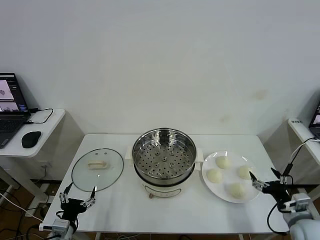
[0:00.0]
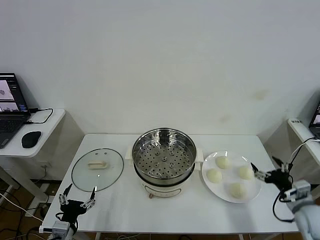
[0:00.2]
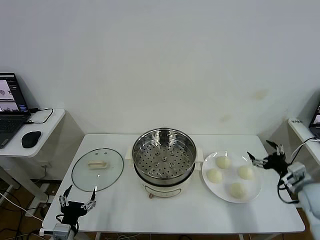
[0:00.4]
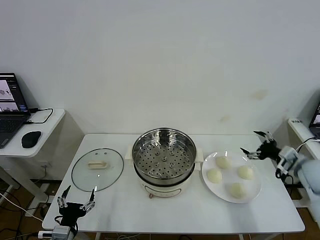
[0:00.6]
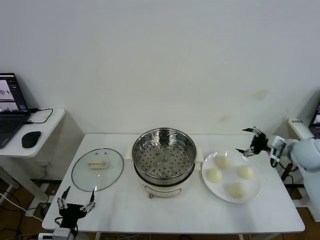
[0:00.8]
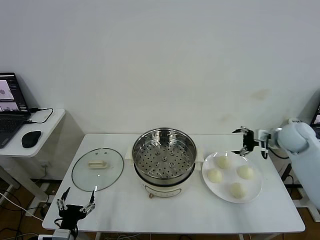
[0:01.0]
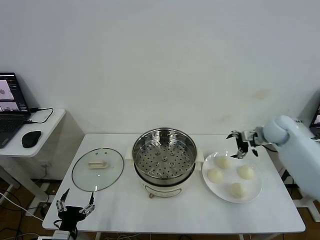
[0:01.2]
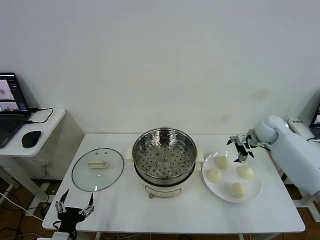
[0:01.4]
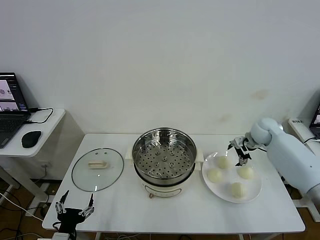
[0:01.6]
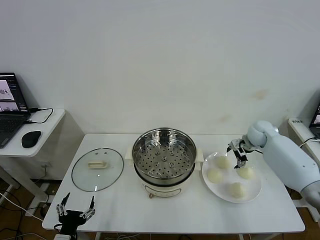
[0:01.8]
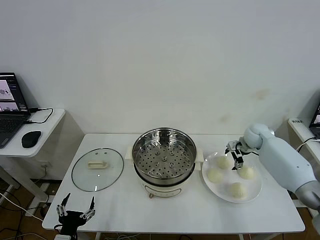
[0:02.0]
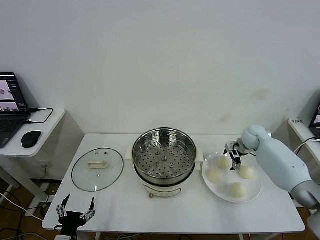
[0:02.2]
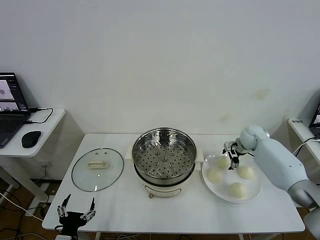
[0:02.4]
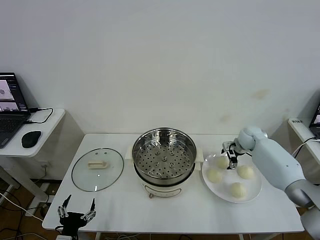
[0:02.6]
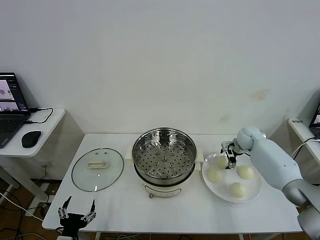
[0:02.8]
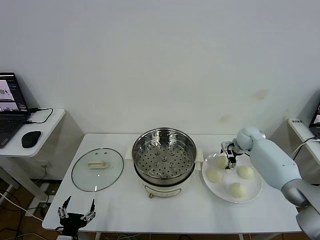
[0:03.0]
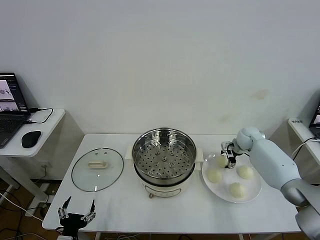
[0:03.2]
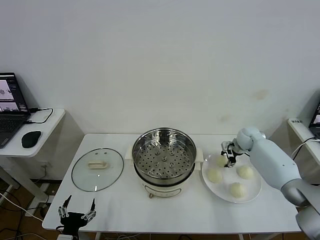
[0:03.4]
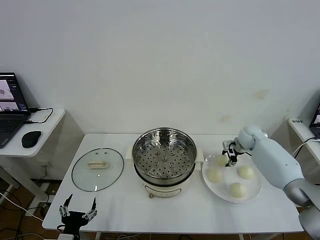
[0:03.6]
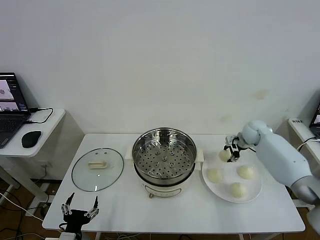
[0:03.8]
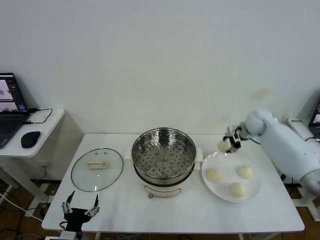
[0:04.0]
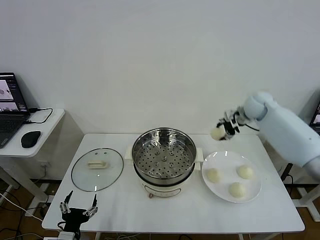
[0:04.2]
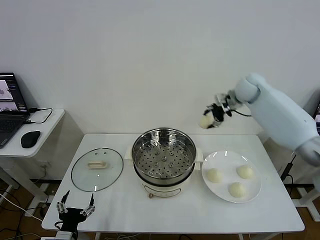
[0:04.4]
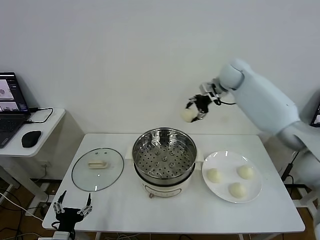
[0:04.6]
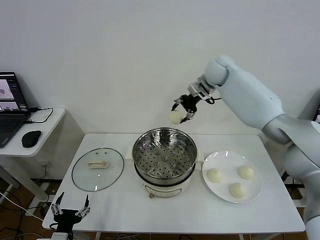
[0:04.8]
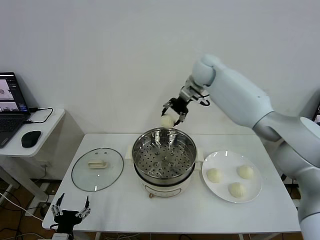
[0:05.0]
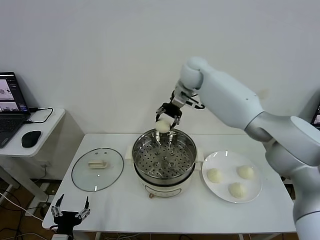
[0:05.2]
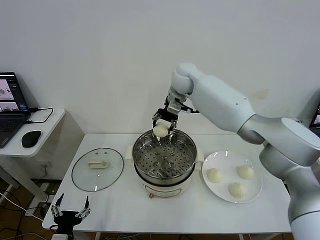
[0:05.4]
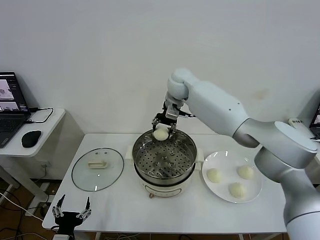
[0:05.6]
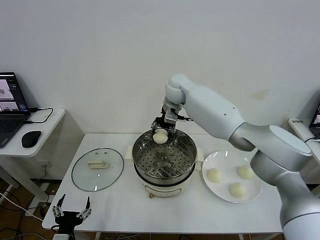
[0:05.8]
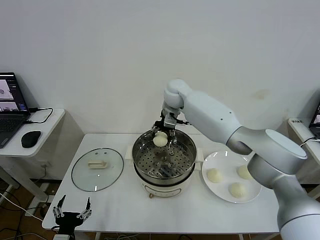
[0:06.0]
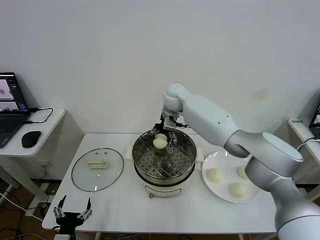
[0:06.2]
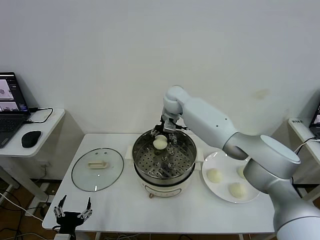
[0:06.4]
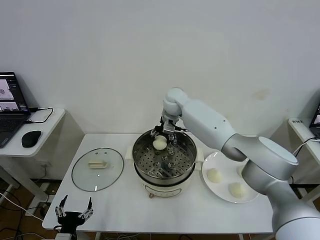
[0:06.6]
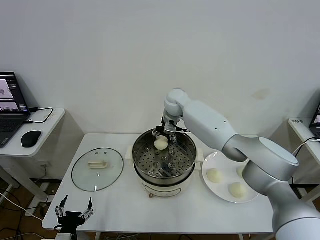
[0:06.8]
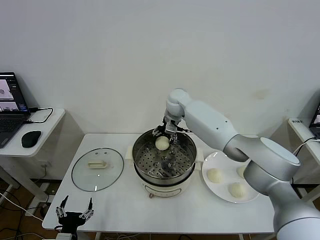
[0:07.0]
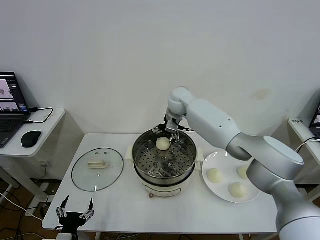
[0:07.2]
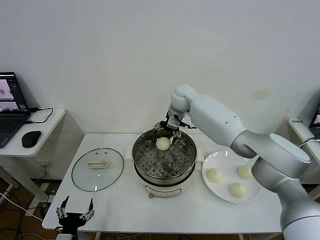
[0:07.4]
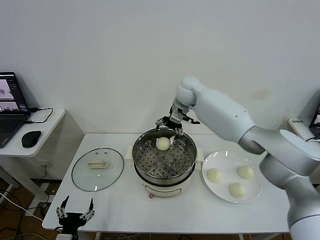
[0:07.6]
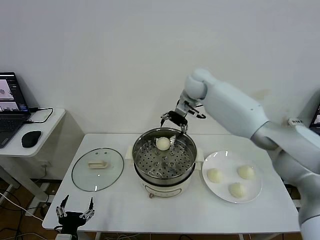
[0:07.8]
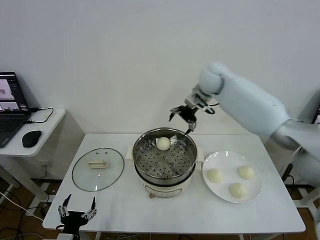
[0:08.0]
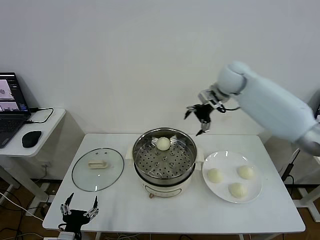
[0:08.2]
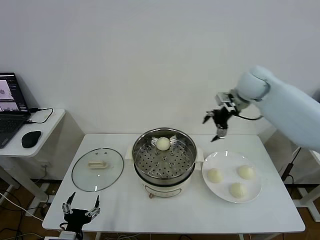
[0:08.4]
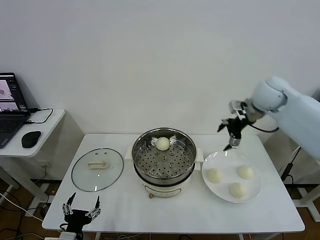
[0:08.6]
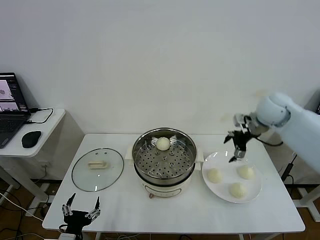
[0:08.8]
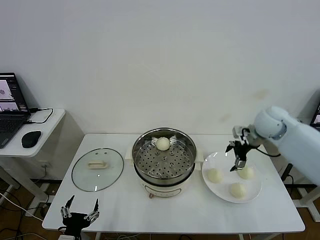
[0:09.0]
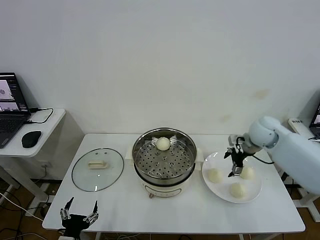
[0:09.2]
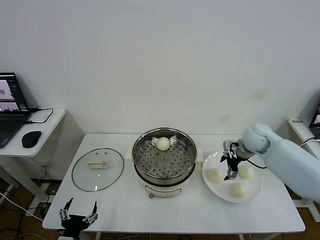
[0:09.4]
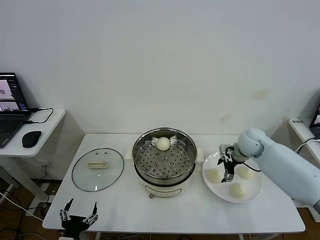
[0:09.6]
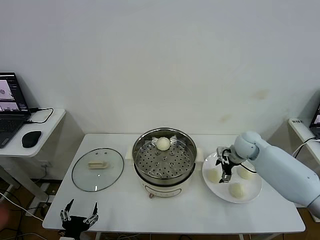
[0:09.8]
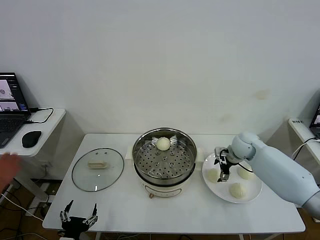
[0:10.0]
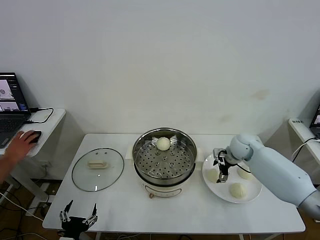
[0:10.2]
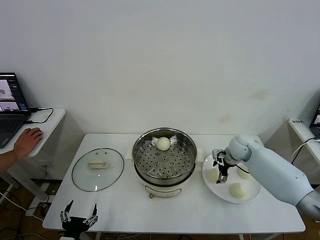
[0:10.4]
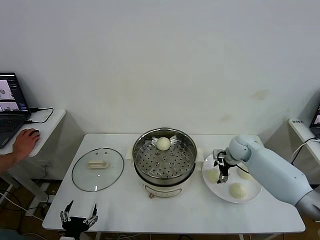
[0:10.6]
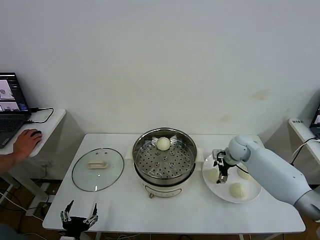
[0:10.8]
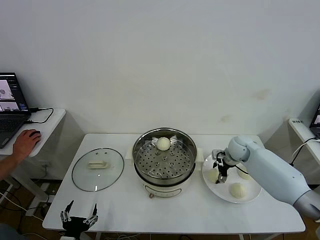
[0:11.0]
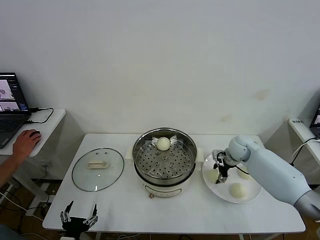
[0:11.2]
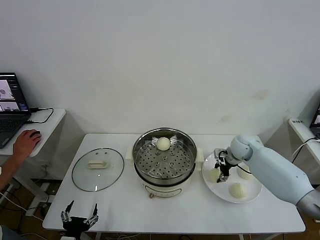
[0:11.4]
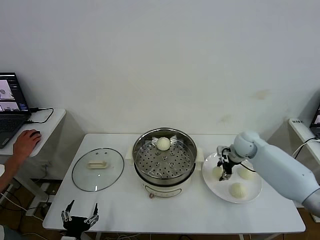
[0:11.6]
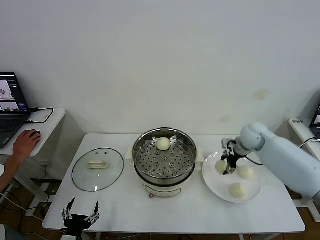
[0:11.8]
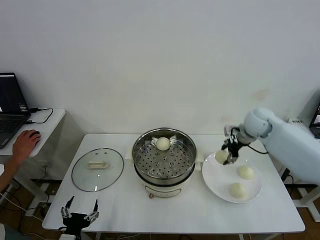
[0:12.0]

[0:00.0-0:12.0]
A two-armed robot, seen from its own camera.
Step, 0:00.0 to 0:03.4: Grasp the baozi in the plate with right gripper.
Step, 0:03.6 to 0:07.0: Place the baozi on the steamer with right gripper.
Step, 0:07.2 to 0:11.2: Grasp the baozi in the plate with right gripper.
0:01.6 to 0:03.0: The right gripper moves downward, roughly 5 cm.
0:03.0 to 0:04.4: The right gripper shifts approximately 20 cm upward, and closes.
0:04.4 to 0:06.0: The right gripper shifts about 25 cm to the left.
0:06.0 to 0:07.6: The right gripper moves about 5 cm, and opens up.
0:07.6 to 0:09.0: The right gripper goes about 30 cm to the right and backward.
0:09.0 to 0:10.4: The right gripper goes about 15 cm downward.
0:10.4 to 0:12.0: The right gripper moves upward, roughly 10 cm, and closes up.

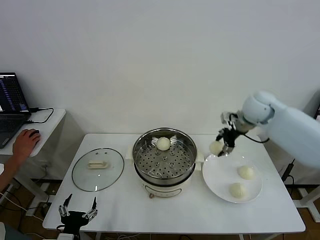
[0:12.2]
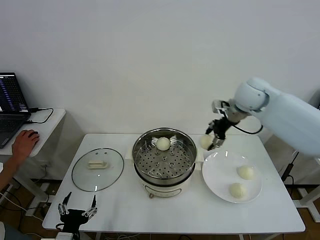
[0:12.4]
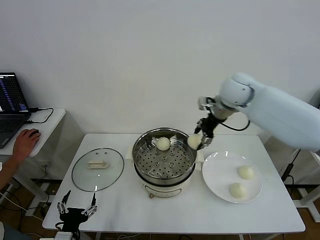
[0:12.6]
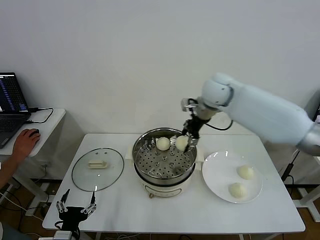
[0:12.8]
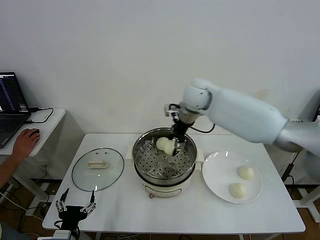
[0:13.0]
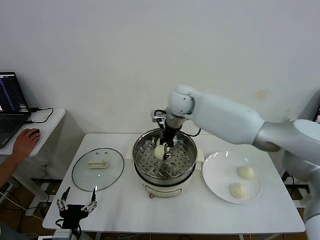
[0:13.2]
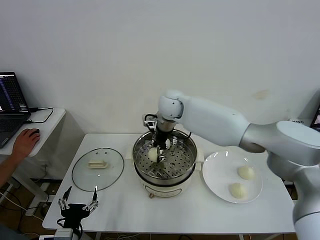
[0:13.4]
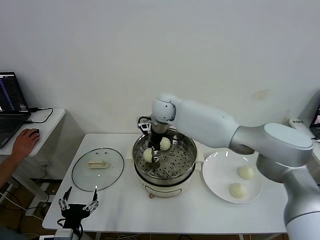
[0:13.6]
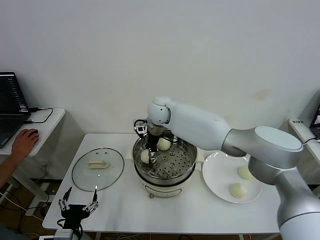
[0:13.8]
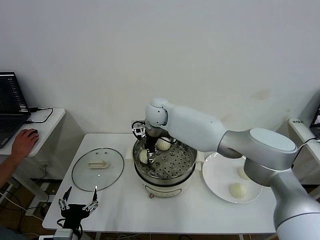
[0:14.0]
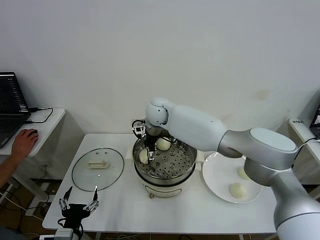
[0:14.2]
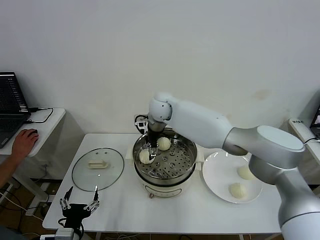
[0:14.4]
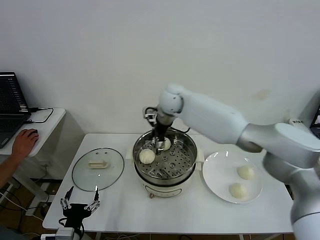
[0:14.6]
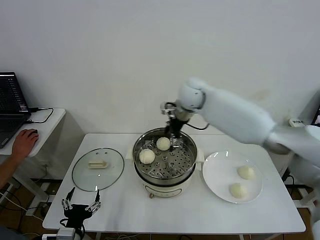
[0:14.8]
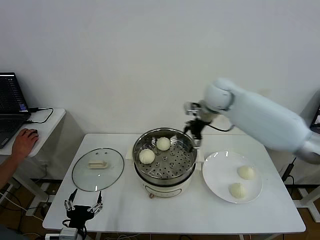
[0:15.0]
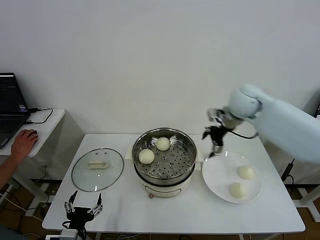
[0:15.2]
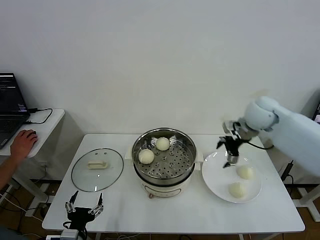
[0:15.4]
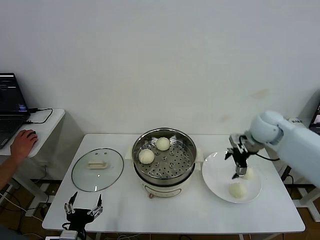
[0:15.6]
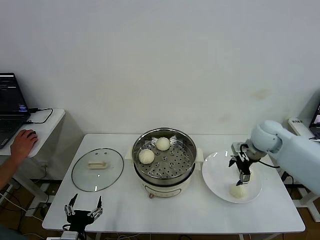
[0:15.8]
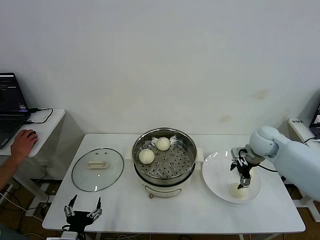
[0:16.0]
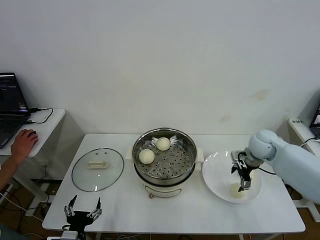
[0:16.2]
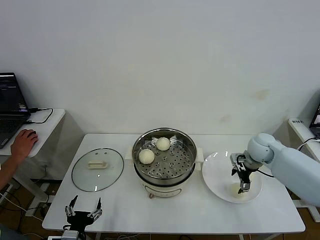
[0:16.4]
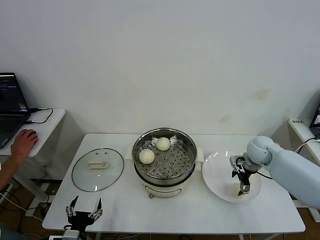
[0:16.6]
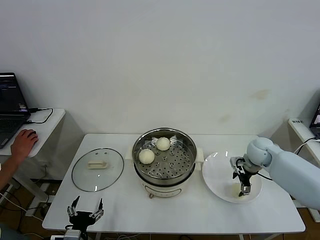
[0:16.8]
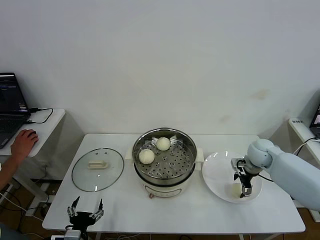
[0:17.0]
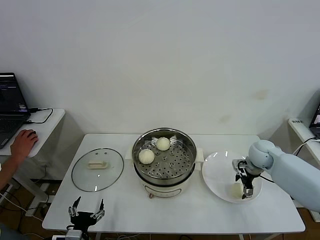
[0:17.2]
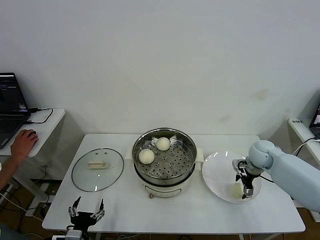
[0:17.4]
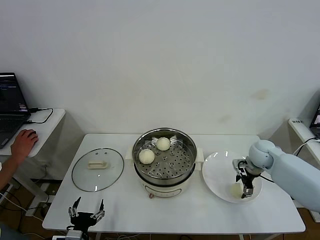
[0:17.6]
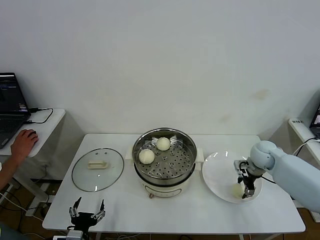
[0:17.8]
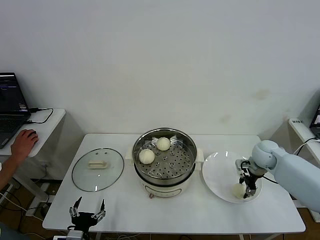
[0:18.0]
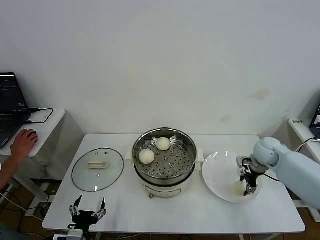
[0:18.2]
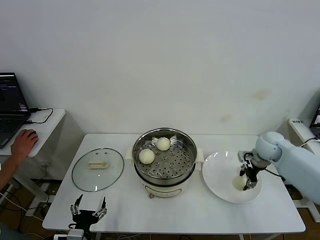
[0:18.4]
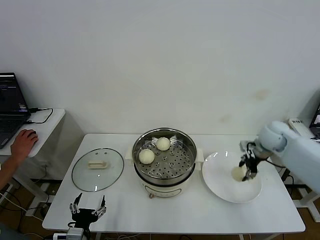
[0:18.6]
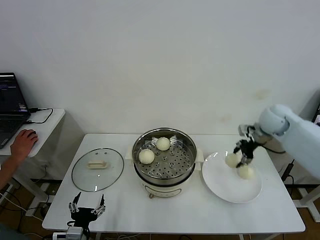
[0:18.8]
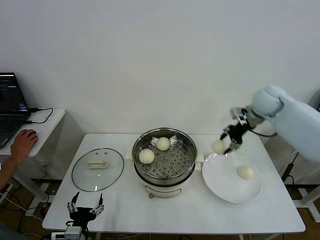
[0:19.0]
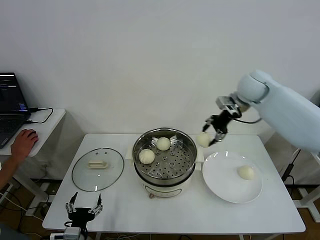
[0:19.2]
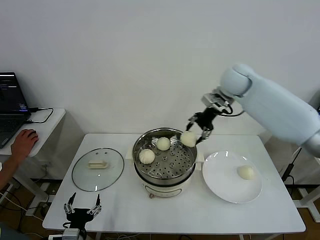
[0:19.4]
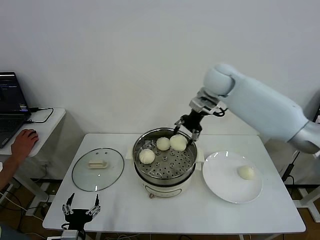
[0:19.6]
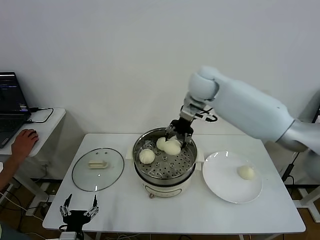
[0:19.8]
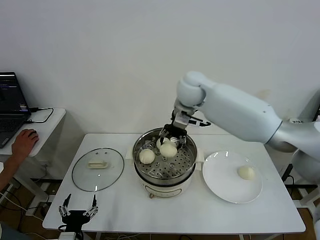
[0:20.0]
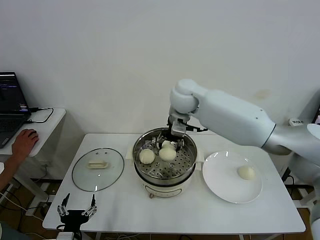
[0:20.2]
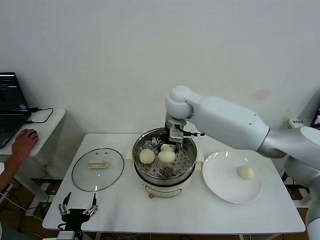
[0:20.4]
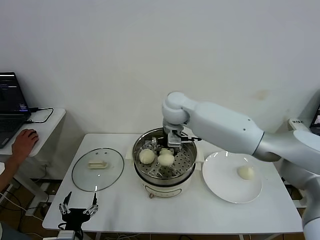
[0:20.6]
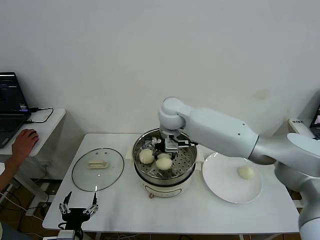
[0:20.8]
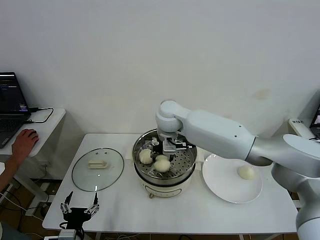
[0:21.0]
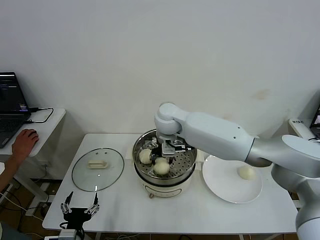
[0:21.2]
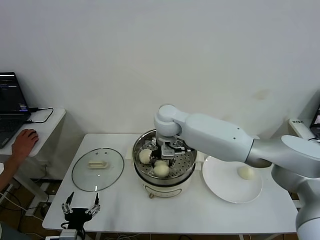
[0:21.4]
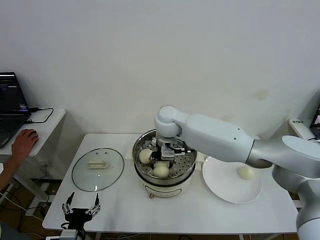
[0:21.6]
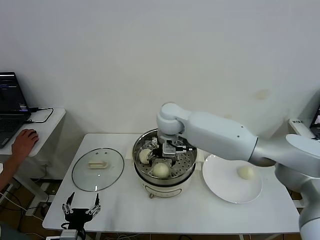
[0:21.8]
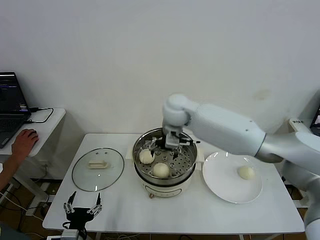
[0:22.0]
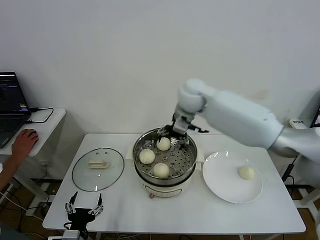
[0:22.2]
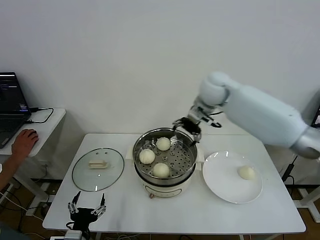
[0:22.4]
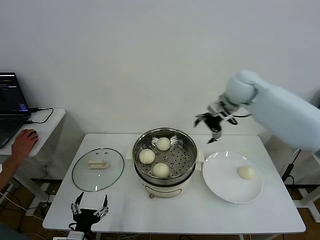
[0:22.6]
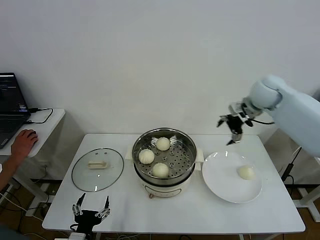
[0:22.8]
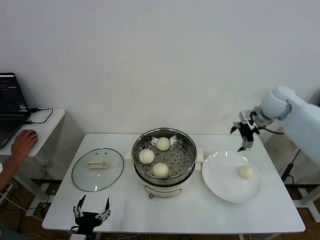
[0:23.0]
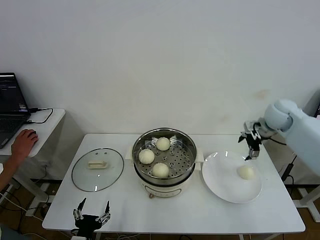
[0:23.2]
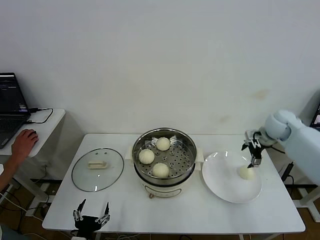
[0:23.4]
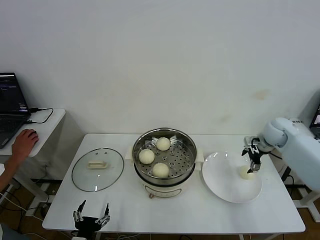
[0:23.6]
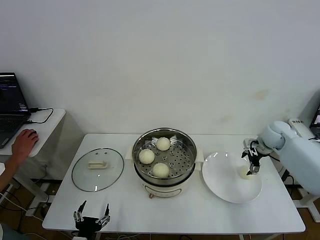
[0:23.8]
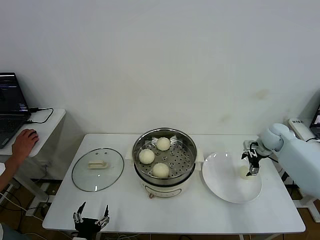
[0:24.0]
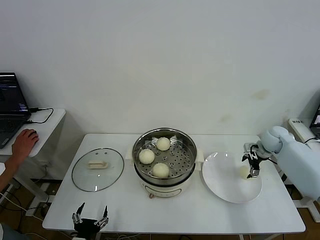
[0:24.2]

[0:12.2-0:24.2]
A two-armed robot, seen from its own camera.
Step, 0:12.2 to 0:14.2: Place the baozi on the steamer with right gripper.
Step, 0:14.4 to 0:18.0: Grasp the baozi in the plate with right gripper.
Step, 0:18.2 to 0:21.6: Place the baozi on the steamer with right gripper.
0:12.2 to 0:13.8: The right gripper heads to the left, covering approximately 30 cm.
0:13.8 to 0:15.2: The right gripper is displaced to the right by some 25 cm, and opens up.
0:15.2 to 0:16.6: The right gripper goes about 20 cm downward and to the right.
0:16.6 to 0:18.2: The right gripper closes up.
0:18.2 to 0:19.8: The right gripper is displaced to the left and upward by roughly 35 cm.
0:19.8 to 0:21.2: The right gripper is displaced to the left, downward and backward by about 15 cm.
0:21.2 to 0:22.6: The right gripper travels to the right by some 25 cm, and opens up.
0:22.6 to 0:24.2: The right gripper moves downward and to the right, about 30 cm.
